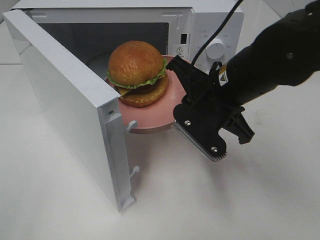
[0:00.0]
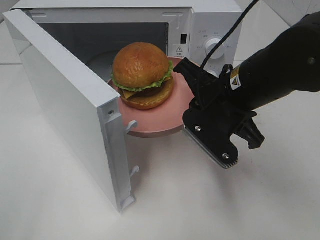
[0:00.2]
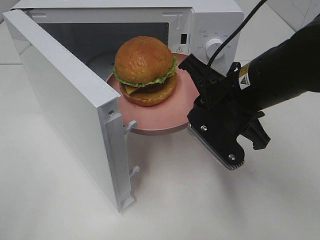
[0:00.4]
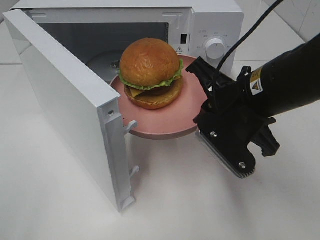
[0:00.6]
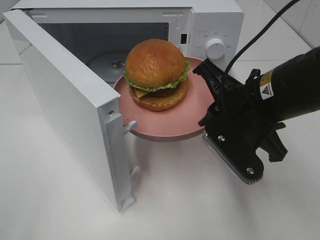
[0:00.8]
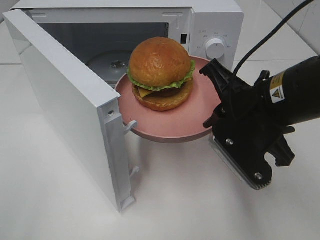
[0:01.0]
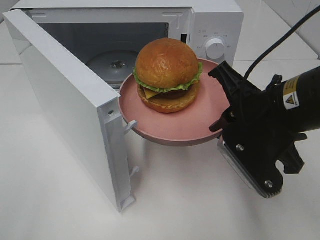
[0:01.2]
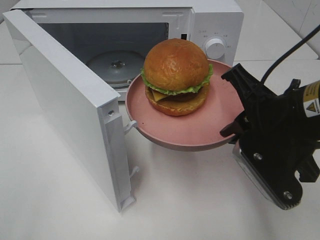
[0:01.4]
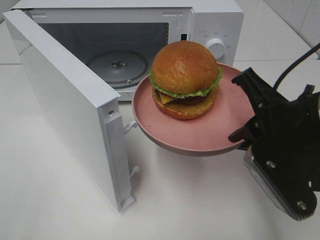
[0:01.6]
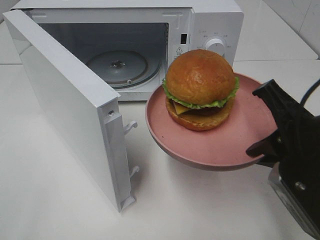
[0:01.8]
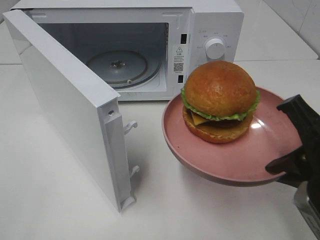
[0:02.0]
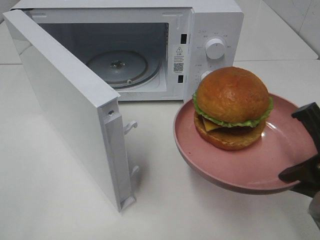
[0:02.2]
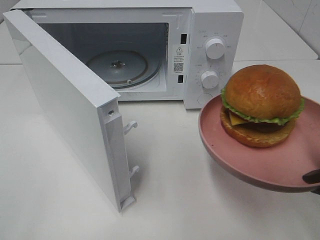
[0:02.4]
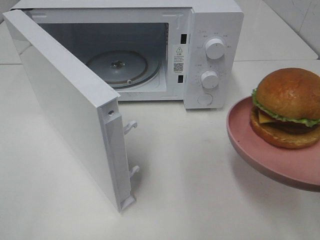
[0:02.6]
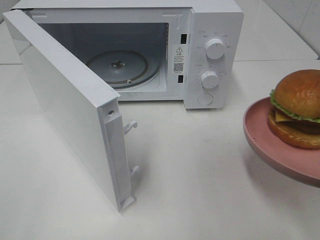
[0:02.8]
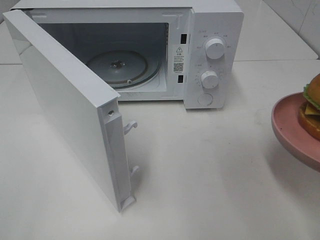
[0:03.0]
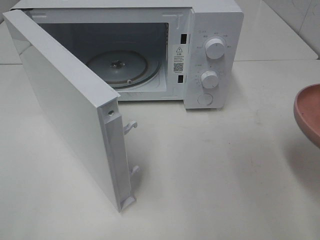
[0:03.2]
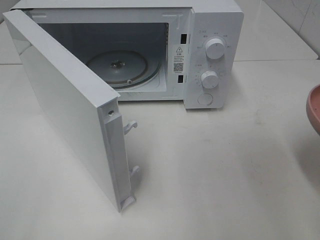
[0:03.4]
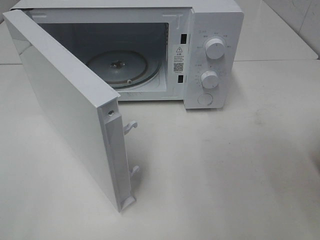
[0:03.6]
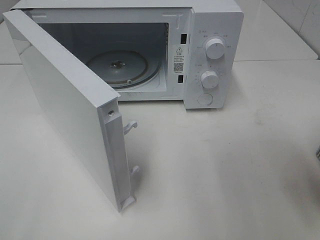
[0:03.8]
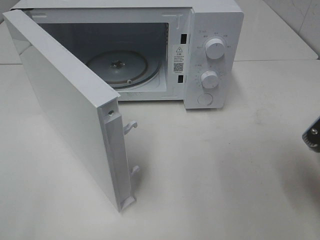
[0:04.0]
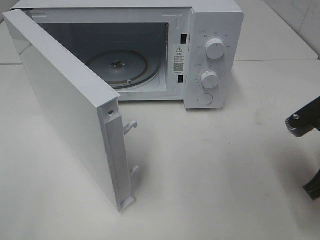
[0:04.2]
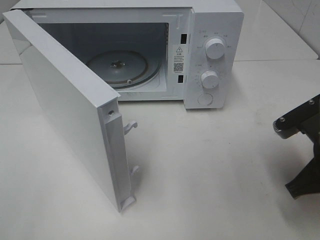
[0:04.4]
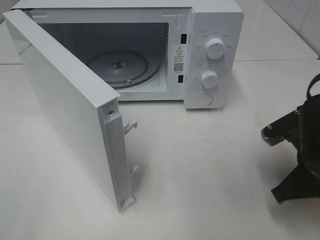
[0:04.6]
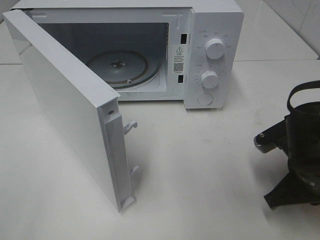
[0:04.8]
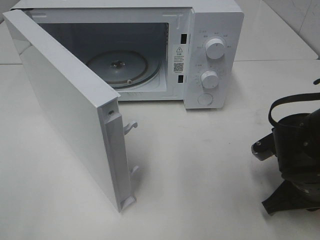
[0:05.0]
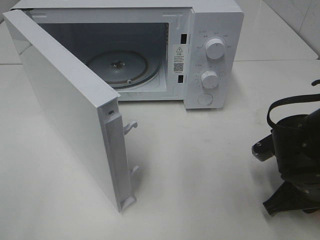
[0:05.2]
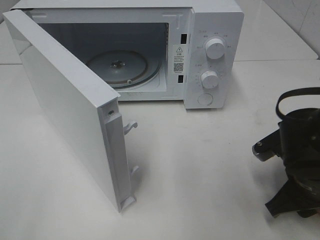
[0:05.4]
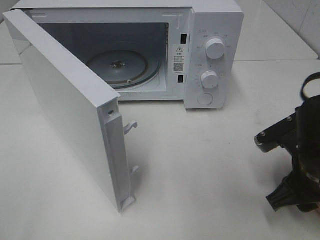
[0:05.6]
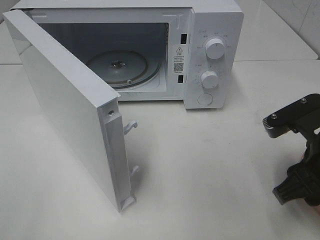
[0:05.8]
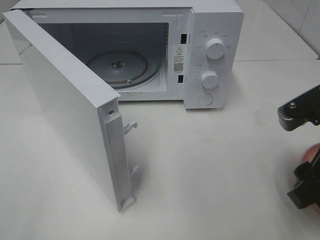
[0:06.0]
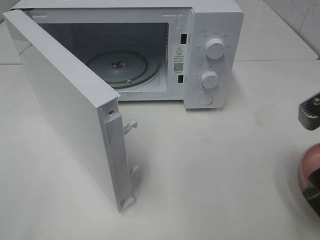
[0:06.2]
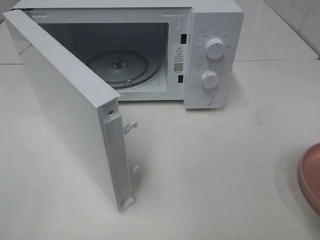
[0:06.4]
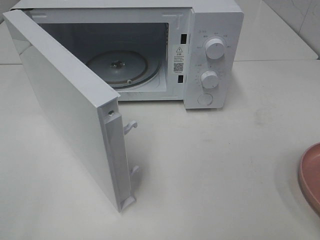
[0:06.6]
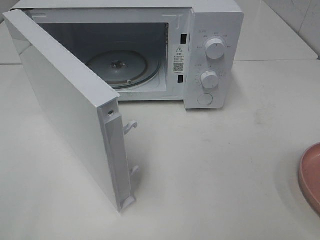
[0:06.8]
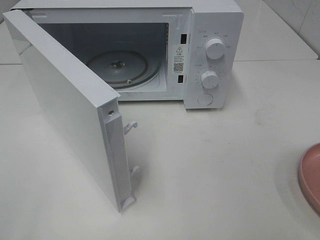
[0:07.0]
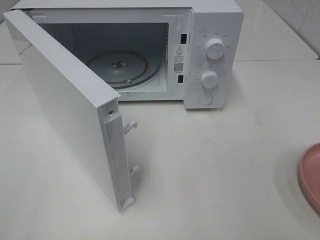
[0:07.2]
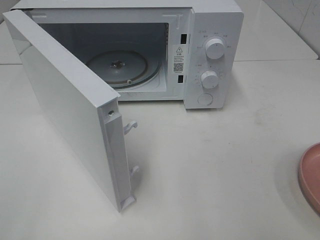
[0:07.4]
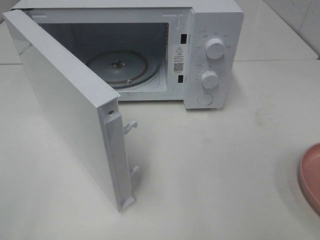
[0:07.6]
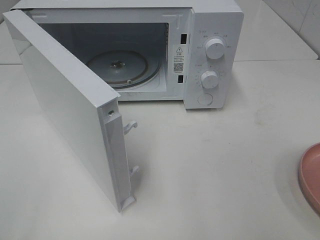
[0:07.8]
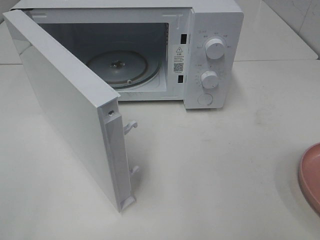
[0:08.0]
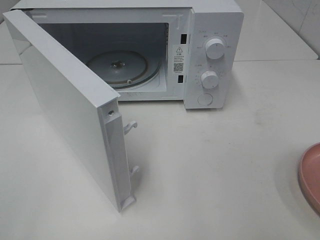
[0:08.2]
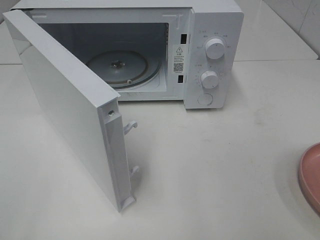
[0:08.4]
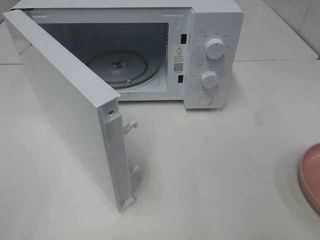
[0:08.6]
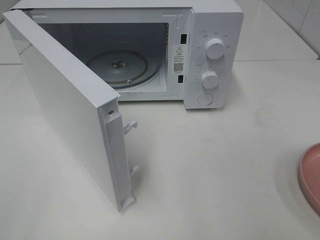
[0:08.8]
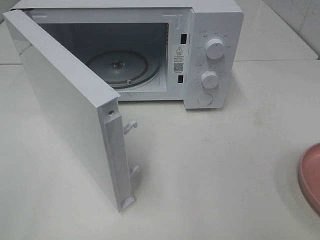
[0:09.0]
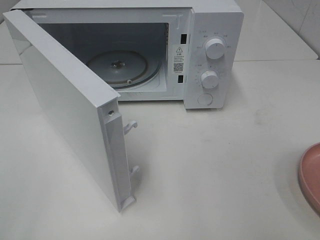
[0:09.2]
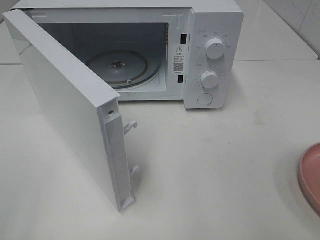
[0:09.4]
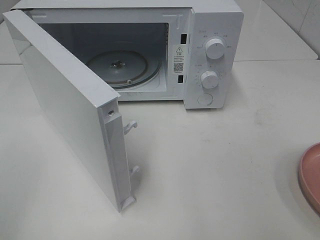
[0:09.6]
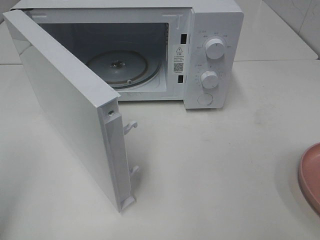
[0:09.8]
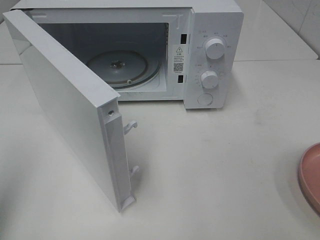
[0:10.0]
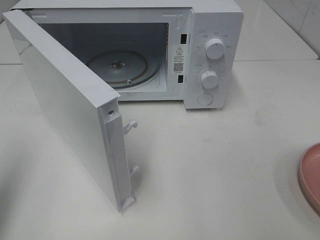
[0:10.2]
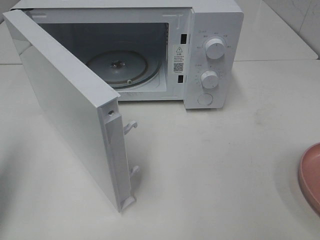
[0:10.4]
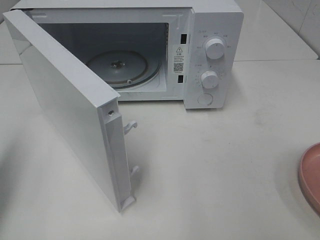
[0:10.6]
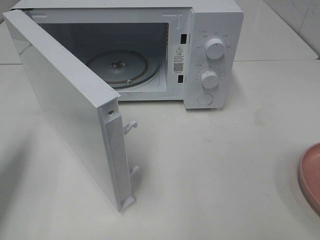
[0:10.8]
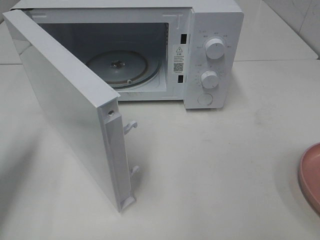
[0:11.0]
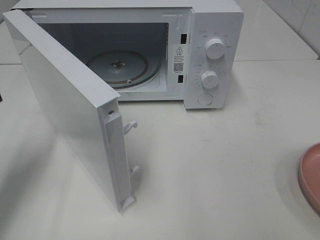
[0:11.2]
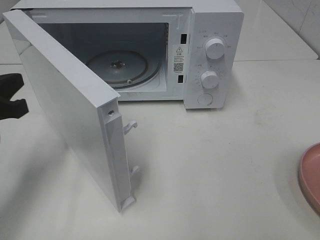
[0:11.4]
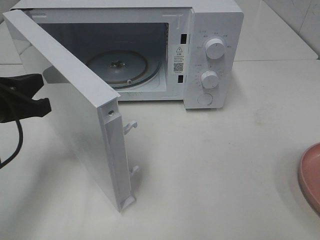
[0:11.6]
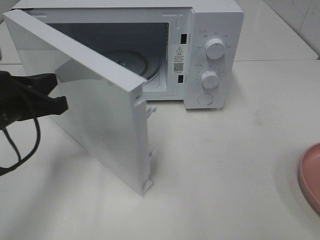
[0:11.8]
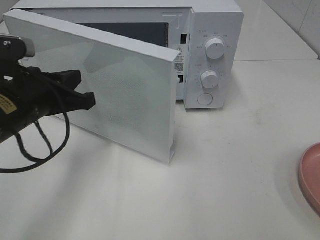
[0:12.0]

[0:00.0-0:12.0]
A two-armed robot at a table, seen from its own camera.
Task of the whole recording: Heat the burger.
Step, 0:00.0 to 0:05.4: Right hand: place the plate on the table.
0:00.0 to 0:01.6: The right gripper shifts some 10 cm backward and to the right.
0:01.6 to 0:03.0: The right gripper moves to the right and backward, about 10 cm.
0:03.0 to 0:04.4: The right gripper moves forward and downward, approximately 10 cm.
0:04.4 to 0:06.0: The right gripper shifts approximately 5 cm upward, and opens.
0:06.0 to 0:07.6: The right gripper is displaced backward, to the right and upward by about 20 cm.
0:07.6 to 0:09.0: Both grippers stay about where they are.
0:09.0 to 0:10.4: The left gripper is displaced forward by roughly 15 cm, and closes its fingers.
0:10.4 to 0:12.0: The left gripper moves to the right, downward and forward, approximately 20 cm.

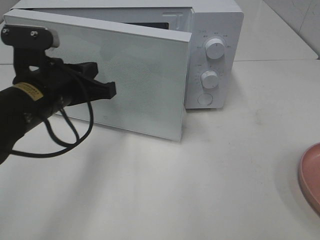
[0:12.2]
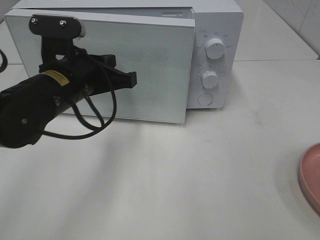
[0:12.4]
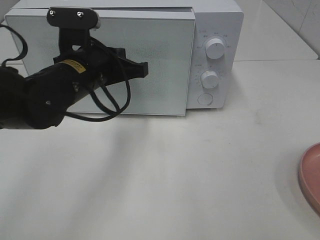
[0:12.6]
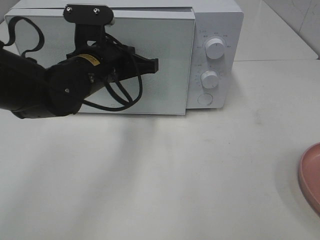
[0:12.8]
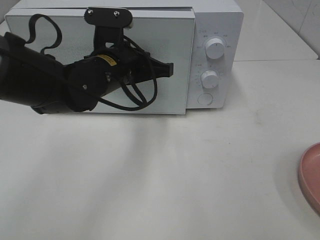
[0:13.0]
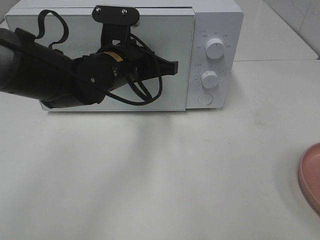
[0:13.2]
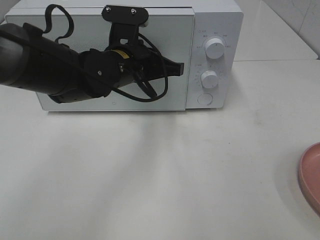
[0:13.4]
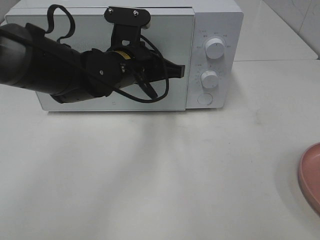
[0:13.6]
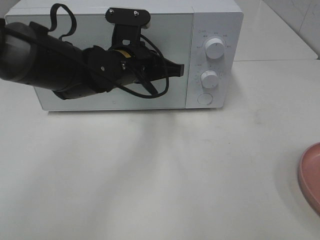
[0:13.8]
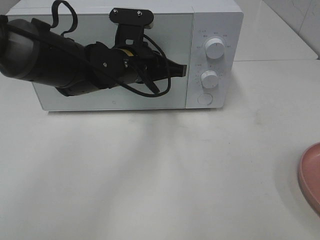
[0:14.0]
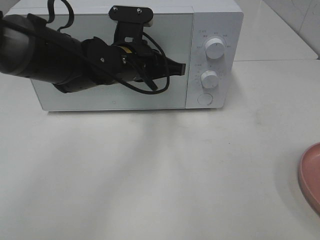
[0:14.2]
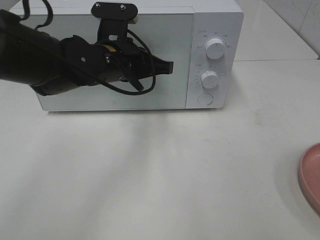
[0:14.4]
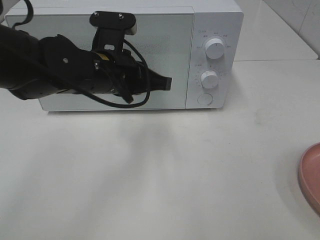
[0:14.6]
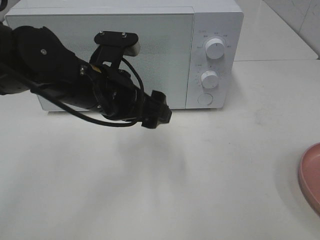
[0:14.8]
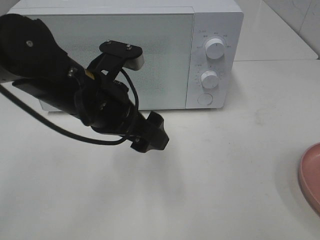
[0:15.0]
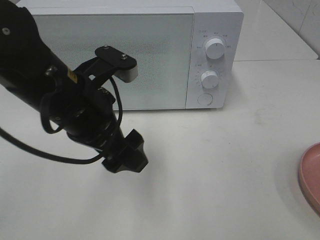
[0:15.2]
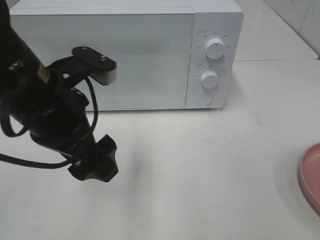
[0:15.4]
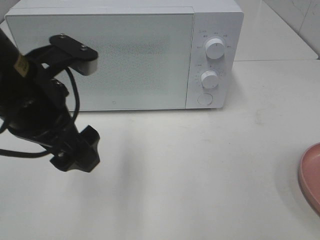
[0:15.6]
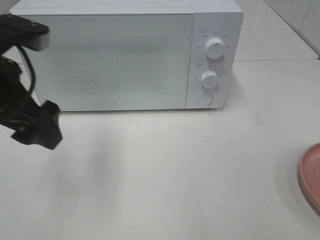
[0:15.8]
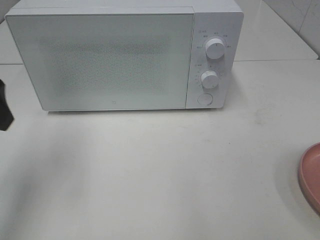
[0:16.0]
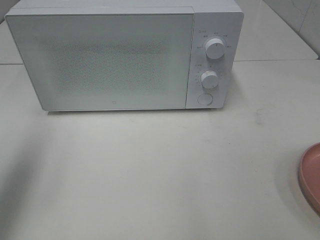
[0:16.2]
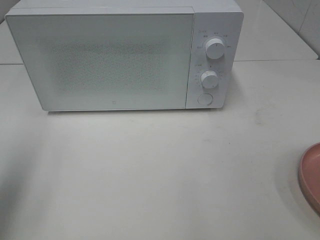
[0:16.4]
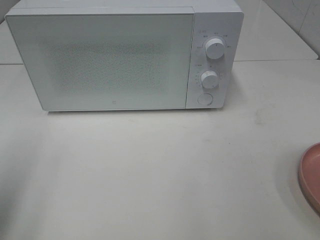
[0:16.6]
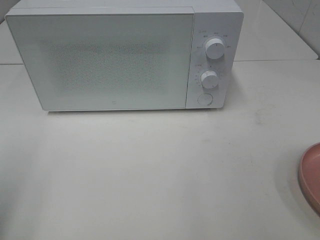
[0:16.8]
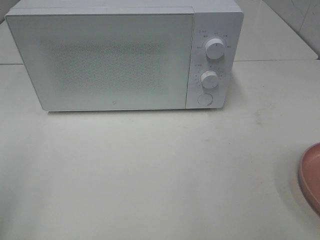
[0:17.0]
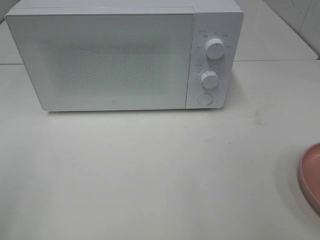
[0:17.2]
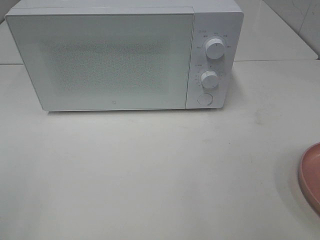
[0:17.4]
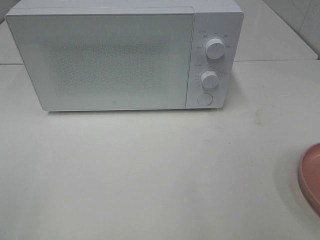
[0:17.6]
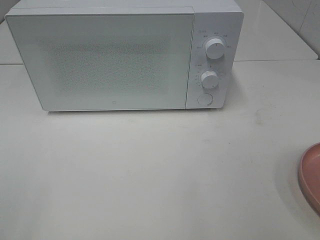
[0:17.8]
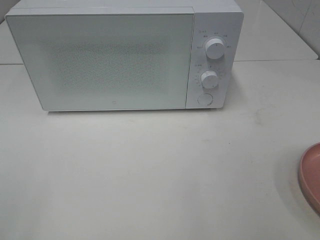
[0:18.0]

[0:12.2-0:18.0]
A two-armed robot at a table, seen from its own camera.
Task of the whole recording: Heat the burger.
Step, 0:12.2 to 0:14.4: Left hand: close the microwave door.
0:12.2 to 0:13.6: The left gripper moves to the right and forward, about 10 cm.
0:13.6 to 0:15.0: The left gripper shifts some 10 cm backward, and opens its fingers.
0:15.0 to 0:16.6: The left gripper moves to the left and backward, roughly 25 cm.
0:16.6 to 0:18.0: The left gripper heads backward, covering roughly 15 cm.

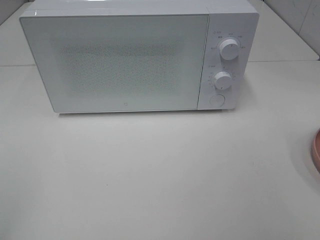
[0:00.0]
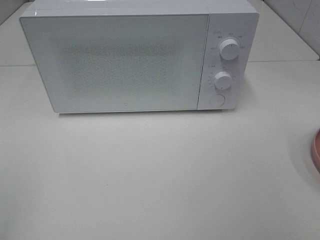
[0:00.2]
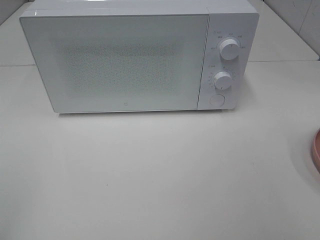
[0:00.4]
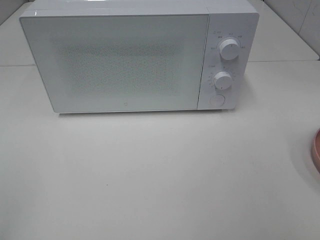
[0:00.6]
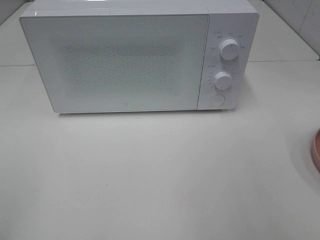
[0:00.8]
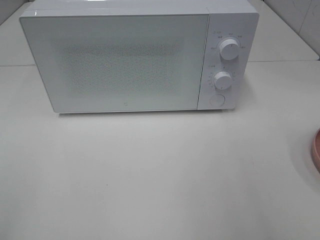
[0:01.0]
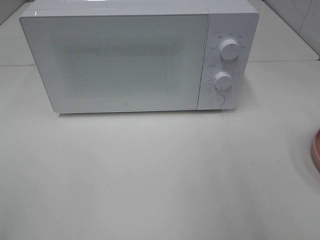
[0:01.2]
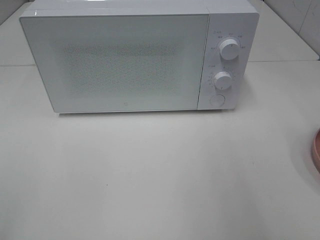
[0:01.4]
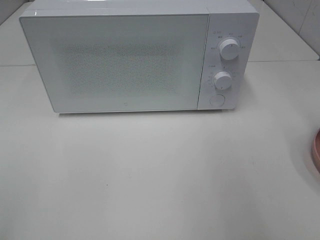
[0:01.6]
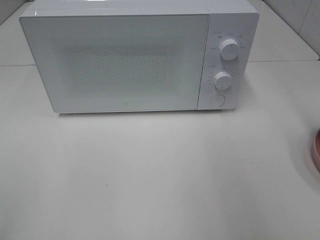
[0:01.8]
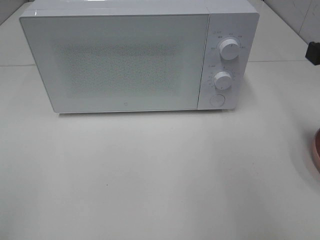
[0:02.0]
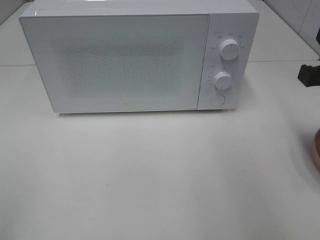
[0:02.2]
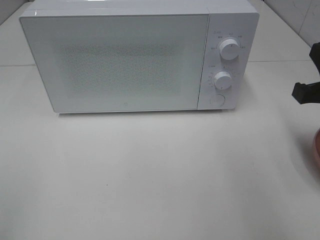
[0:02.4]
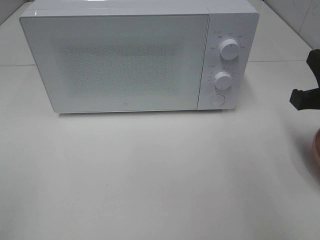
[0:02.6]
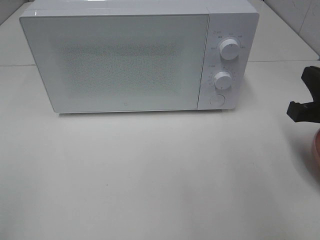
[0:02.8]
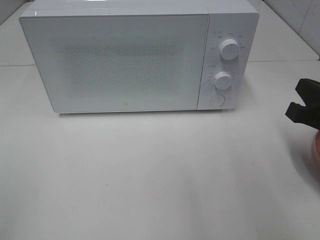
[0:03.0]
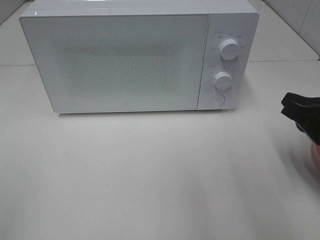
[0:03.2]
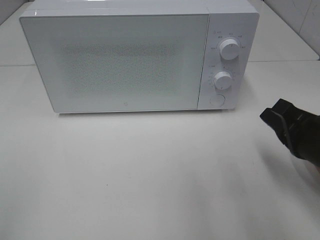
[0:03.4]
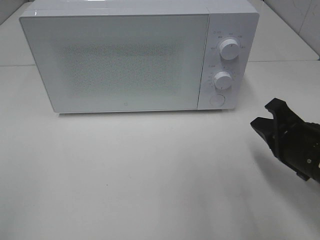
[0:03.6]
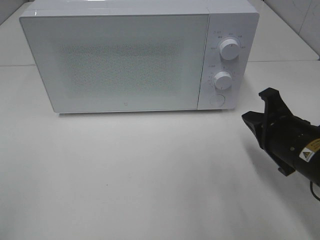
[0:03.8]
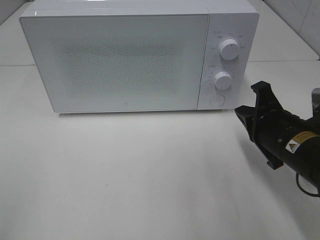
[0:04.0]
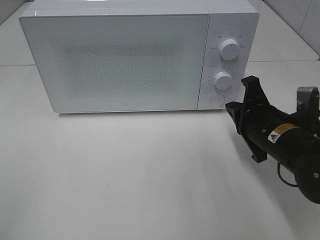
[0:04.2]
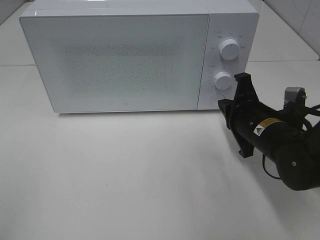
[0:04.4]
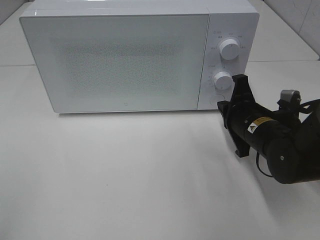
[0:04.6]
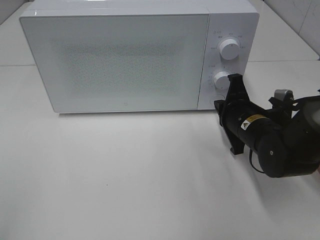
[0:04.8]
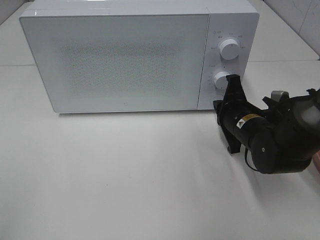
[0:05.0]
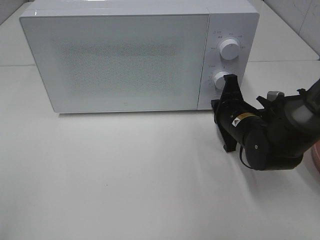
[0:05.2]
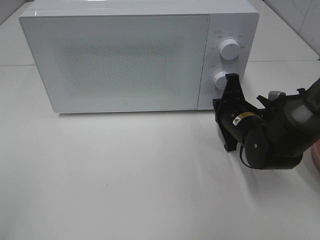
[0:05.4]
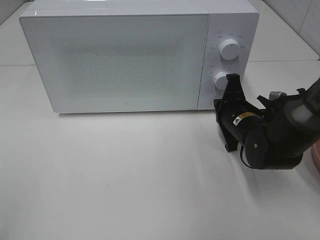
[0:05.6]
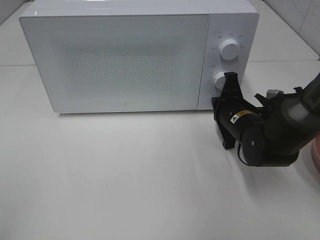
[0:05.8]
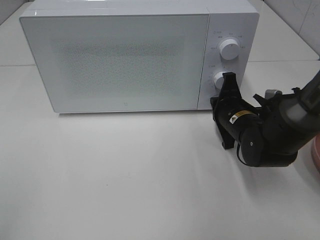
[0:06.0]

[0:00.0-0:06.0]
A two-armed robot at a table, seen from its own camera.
Task of the whole recording: Heat the burger.
0:01.6 to 0:03.0: The right gripper moves downward, some 15 cm.
0:03.0 to 0:04.4: The right gripper shifts some 15 cm forward, to the left and downward.
0:04.4 to 0:06.0: The right gripper heads forward, covering about 5 cm.
